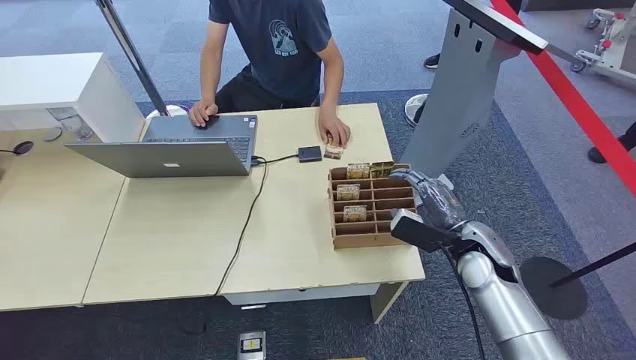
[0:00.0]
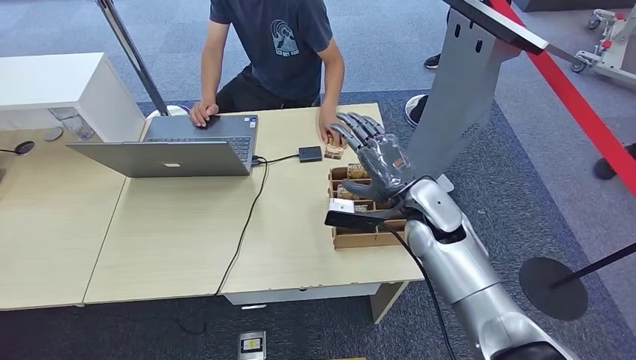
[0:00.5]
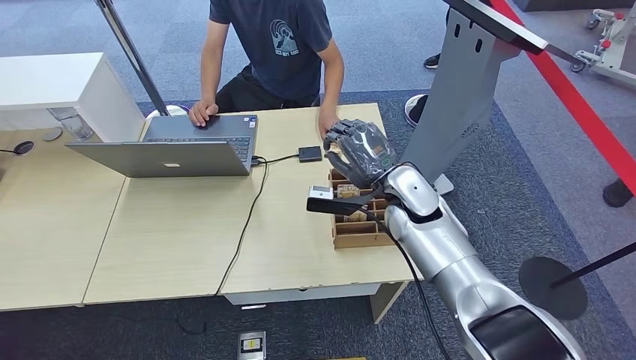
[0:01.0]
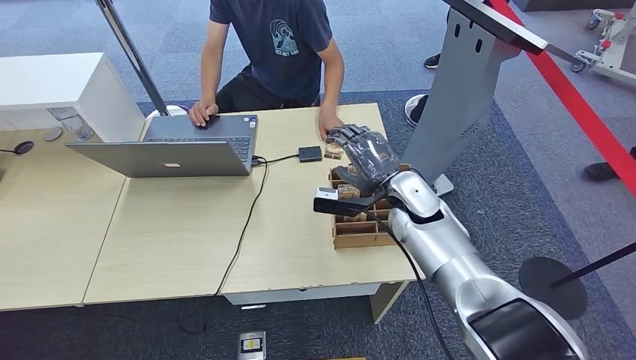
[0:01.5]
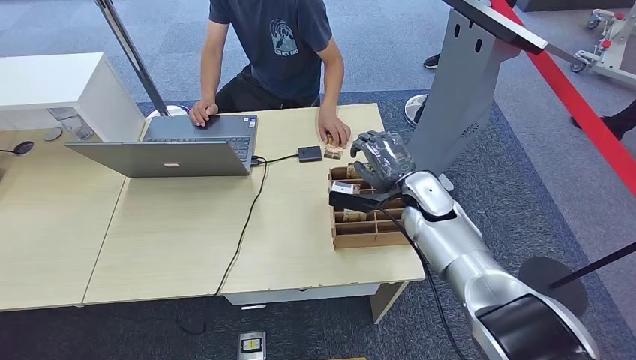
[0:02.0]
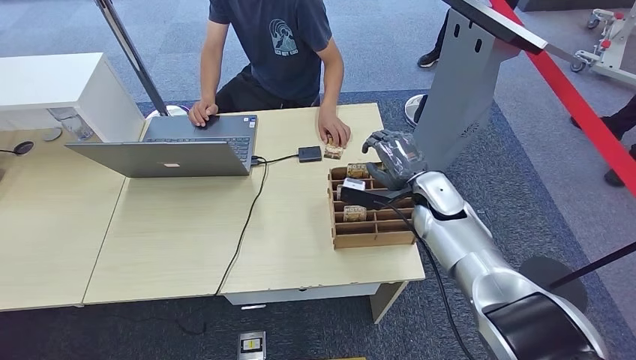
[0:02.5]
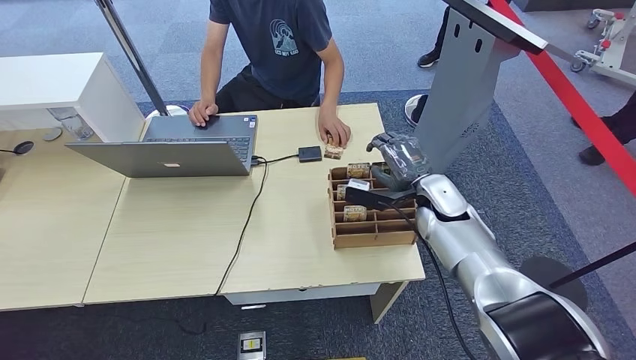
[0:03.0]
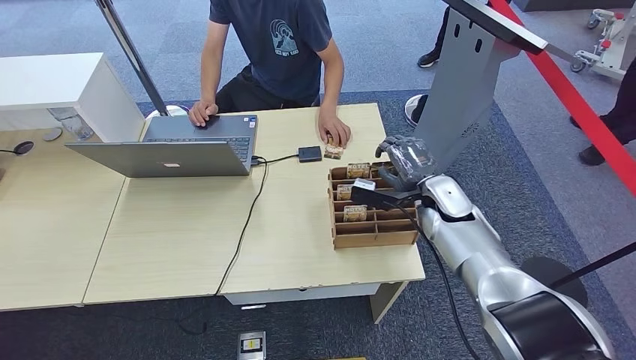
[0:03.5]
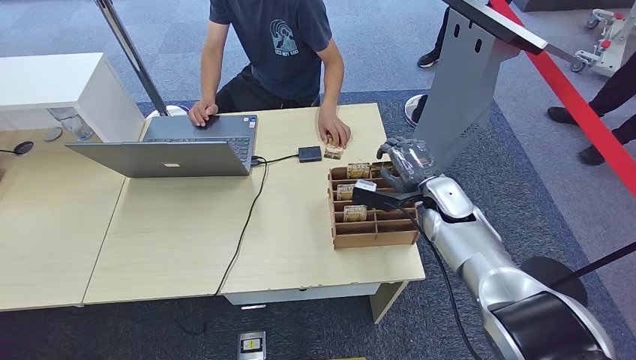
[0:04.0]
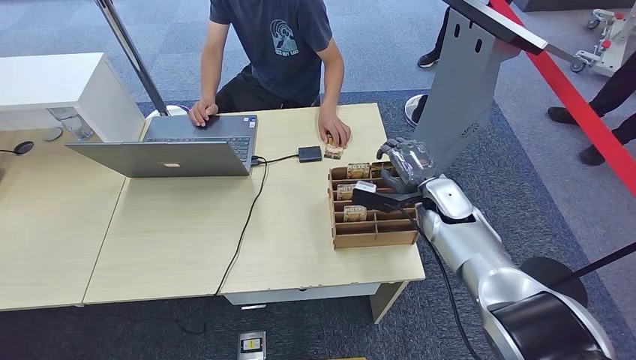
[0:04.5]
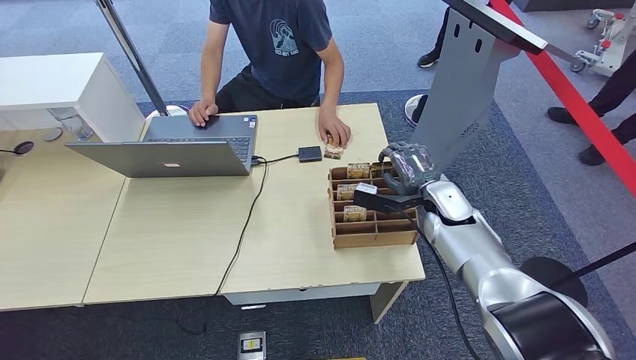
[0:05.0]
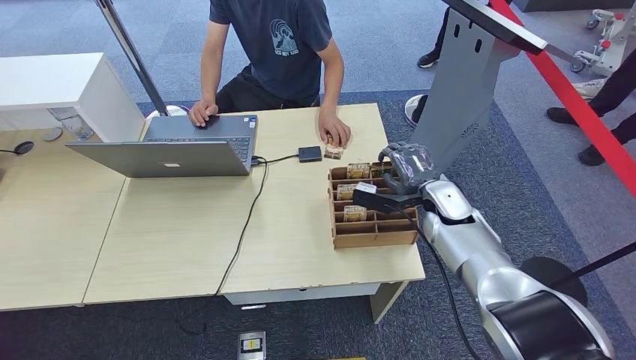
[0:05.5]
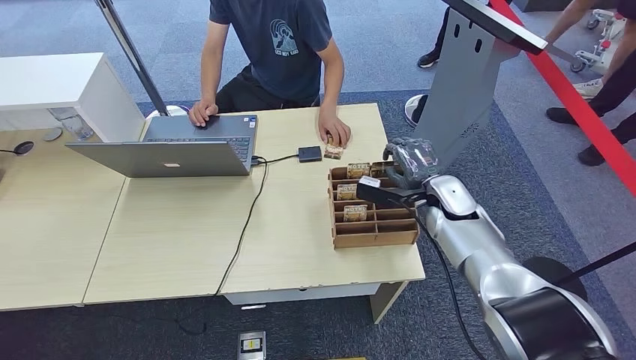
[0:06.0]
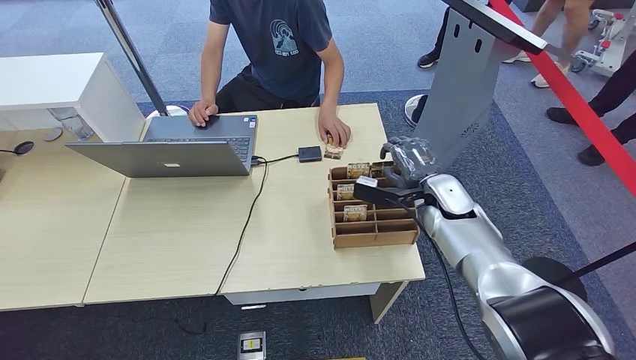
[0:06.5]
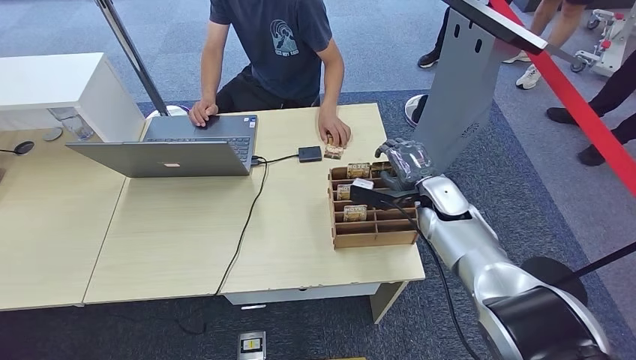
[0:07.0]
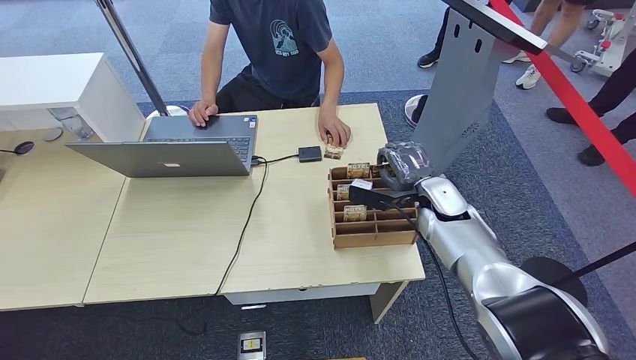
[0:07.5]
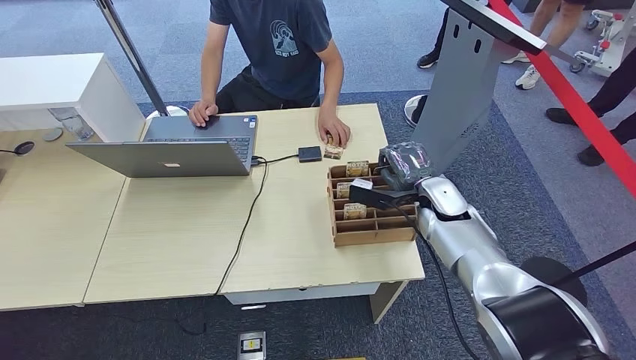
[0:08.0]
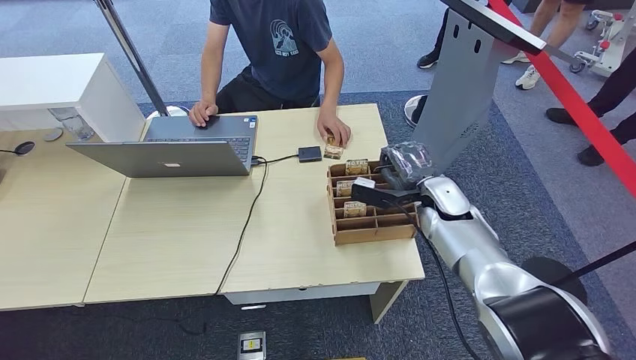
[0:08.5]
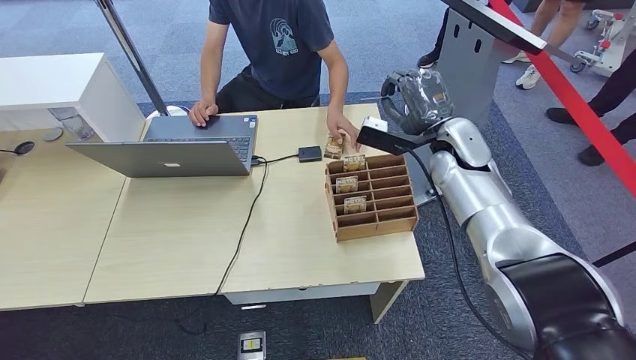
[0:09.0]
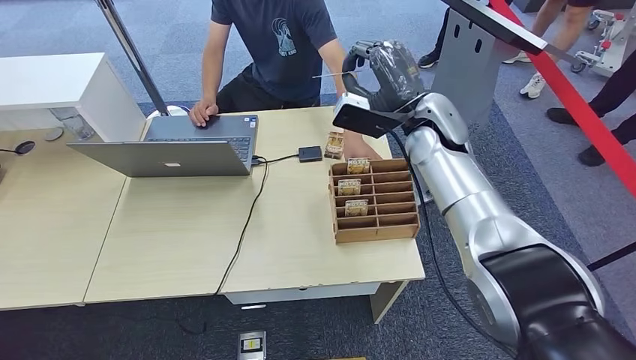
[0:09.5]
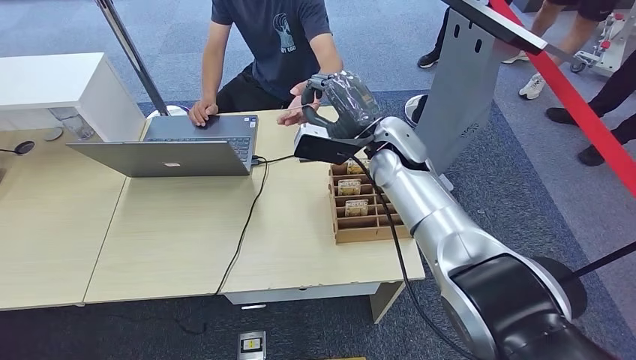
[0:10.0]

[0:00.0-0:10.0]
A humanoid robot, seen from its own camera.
Step, 0:00.0 to 0:09.5: Pick up the key card from the card box.
0:02.0 to 0:04.0: There are only small adjustments of the hands.
0:04.0 to 0:06.0: Neither hand changes place.
0:06.0 to 0:08.0: The hands make only small movements.
0:08.0 to 0:10.0: The right hand shifts about 15 cm upward and to the left.
